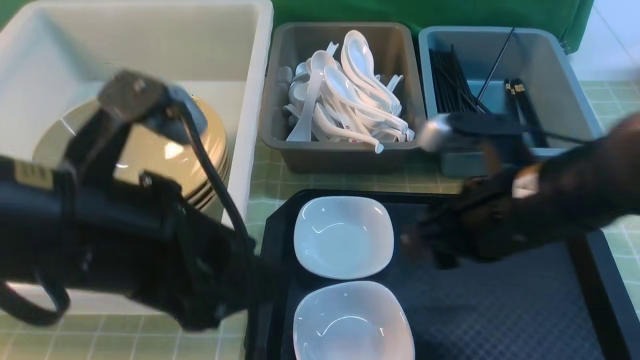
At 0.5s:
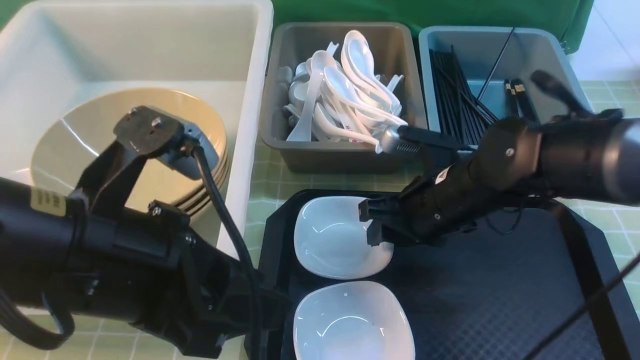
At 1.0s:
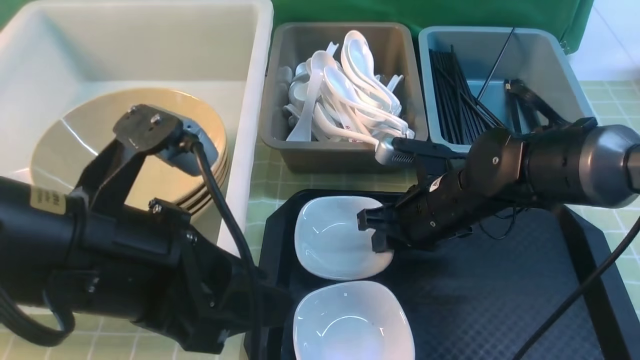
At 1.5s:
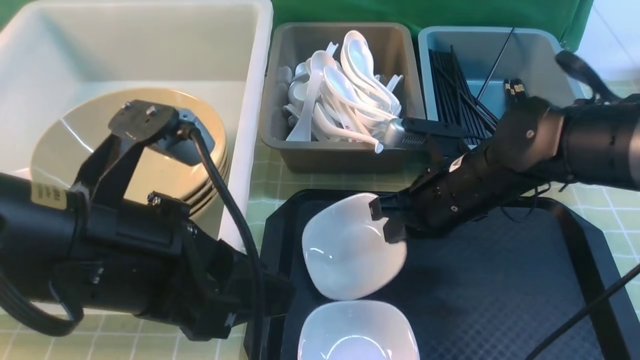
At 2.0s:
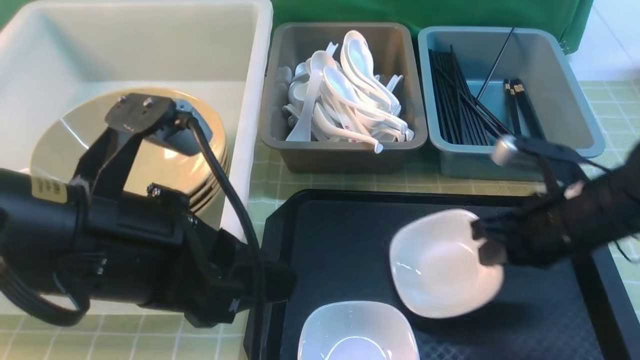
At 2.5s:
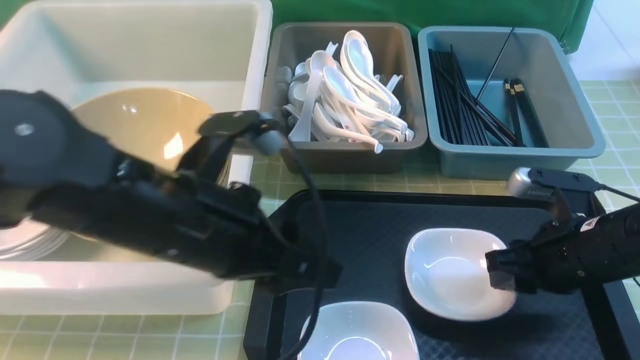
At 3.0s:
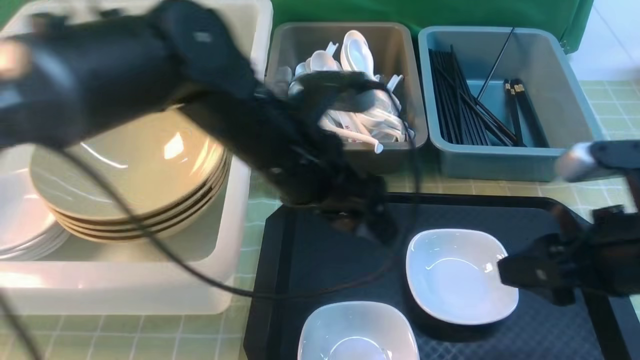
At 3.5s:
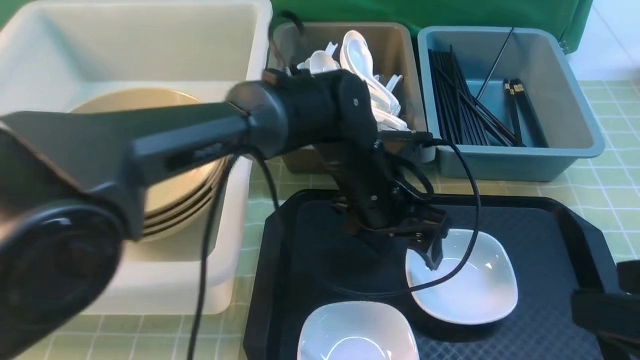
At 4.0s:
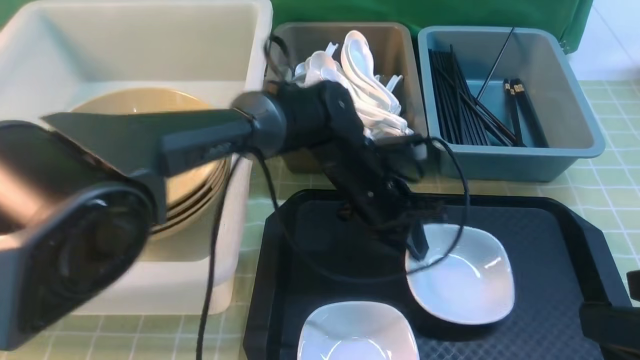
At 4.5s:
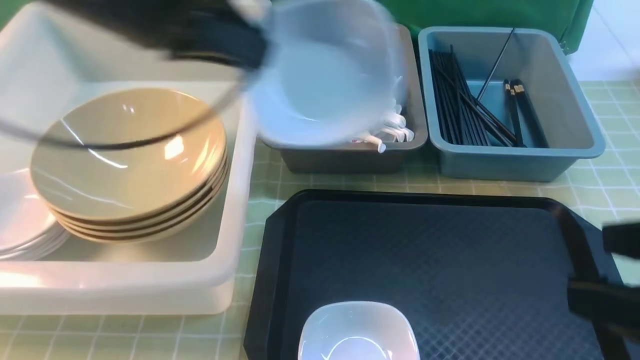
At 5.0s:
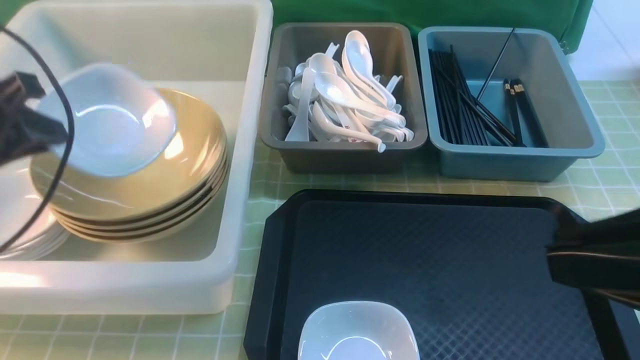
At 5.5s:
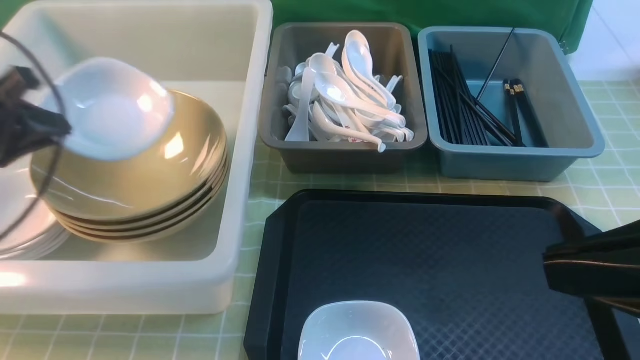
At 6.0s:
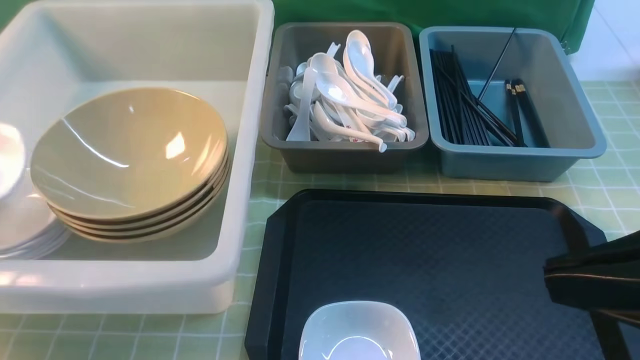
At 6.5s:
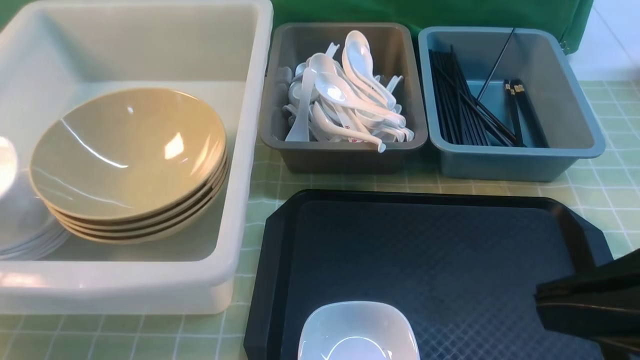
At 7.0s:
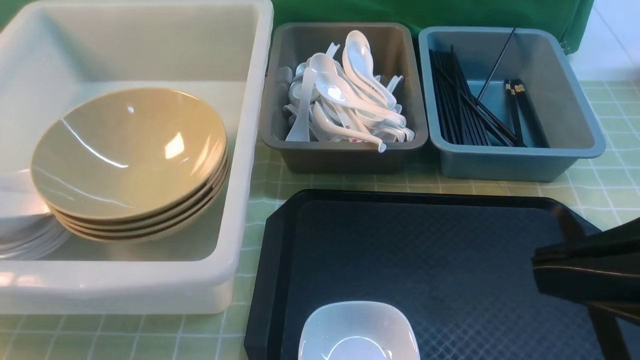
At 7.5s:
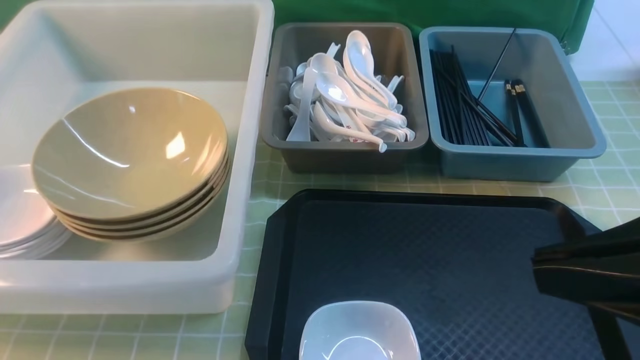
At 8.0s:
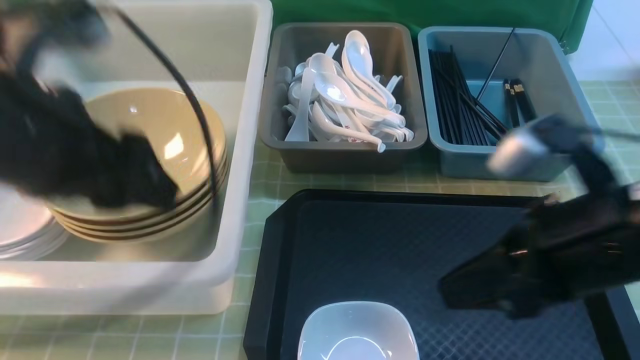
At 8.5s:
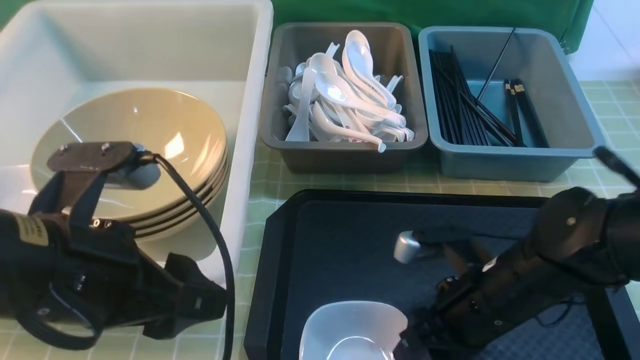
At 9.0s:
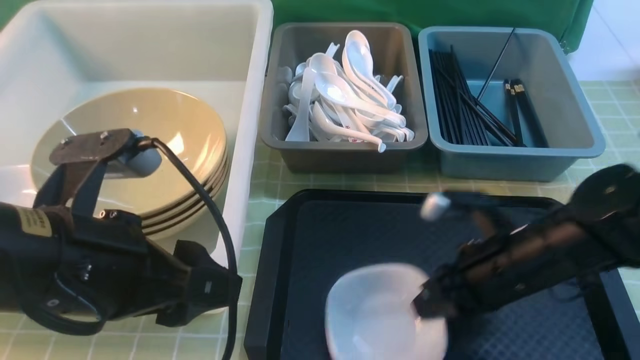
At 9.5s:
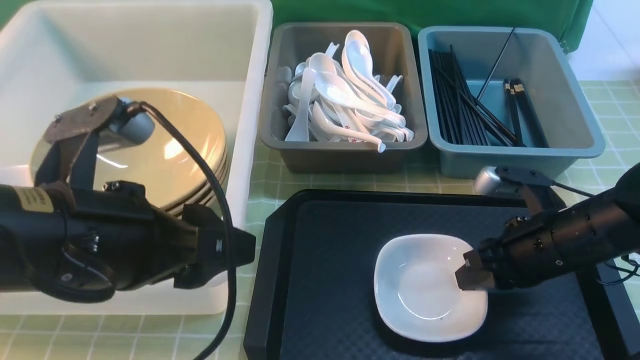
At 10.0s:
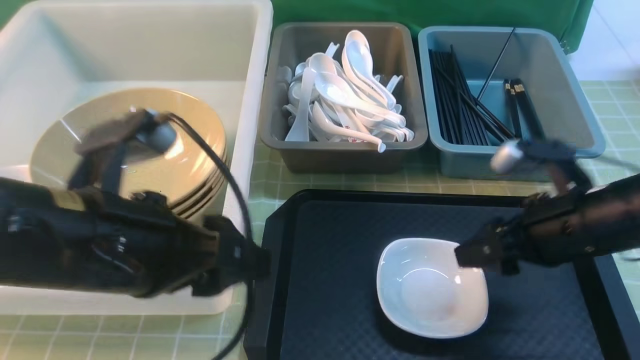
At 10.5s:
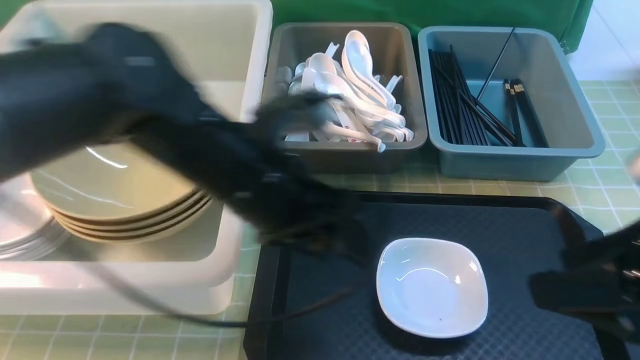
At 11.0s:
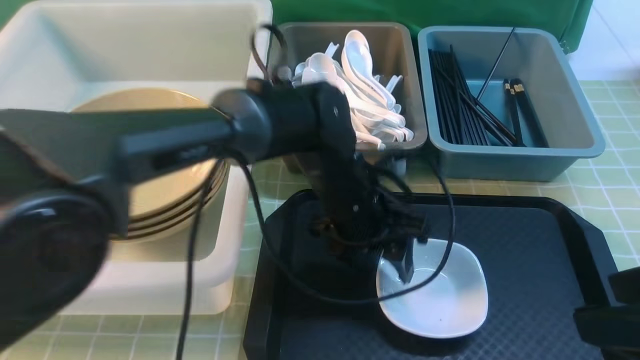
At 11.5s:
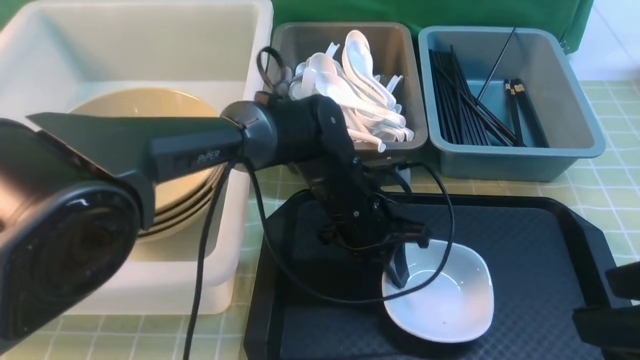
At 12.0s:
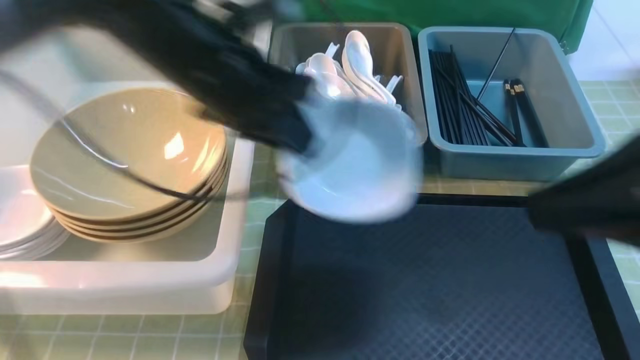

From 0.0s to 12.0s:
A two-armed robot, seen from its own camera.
Task of the whole recording: on green table put chopsticks spoon bowls plates into blue grey white boxes.
Step, from 0.0s to 1.5s: use the right arm to grab the plate.
Step, from 2.0s to 2.5s: use the right arm to put the plate on the tray.
Step, from 3.0s to 4.0s: use the left arm to grab the plate.
Step, from 4.5s to 7.5s: use the left arm to put the plate into the large storage box on the left.
Step, from 8.0s to 9.0s: use the right arm to grab the plate.
Step, from 9.5s to 10.0s: use the right arm to put the plate on the tray.
Step, from 10.5s to 11.5s: use the left arm to grab the plate.
From 0.0s to 2.0s: The right gripper heads to the right and downward, covering about 10 cm, and closes up.
From 2.0s to 4.0s: The left gripper is displaced forward, to the right and downward by about 30 cm, and closes up. Meanwhile the right gripper heads backward and upward, covering about 20 cm, and opens.
From 4.0s to 6.0s: The right gripper moves upward, about 5 cm, and closes its fingers. The left gripper heads to the left, covering approximately 40 cm.
From 6.0s to 8.0s: The left gripper heads to the right and upward, covering roughly 25 cm, and opens its fingers. The right gripper moves forward and downward, roughly 15 cm.
From 8.0s to 10.0s: The right gripper goes roughly 10 cm downward, forward and to the right, and opens its fingers. The left gripper shifts approximately 5 cm downward.
From 10.0s to 12.0s: The left gripper goes some 15 cm forward, reaches approximately 15 cm to the right, then returns, and closes up. The right gripper heads upward and backward, covering approximately 20 cm, and closes its fingers.

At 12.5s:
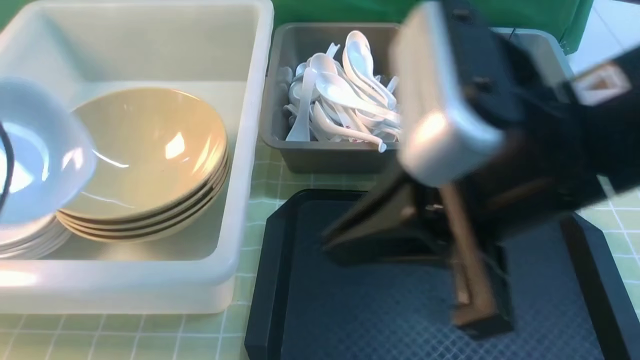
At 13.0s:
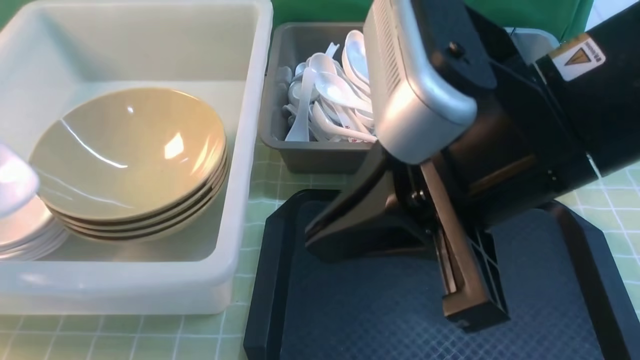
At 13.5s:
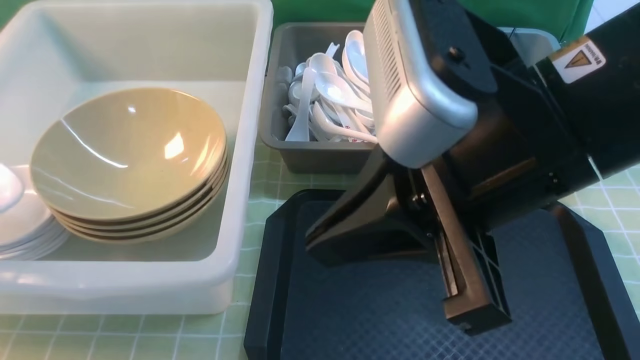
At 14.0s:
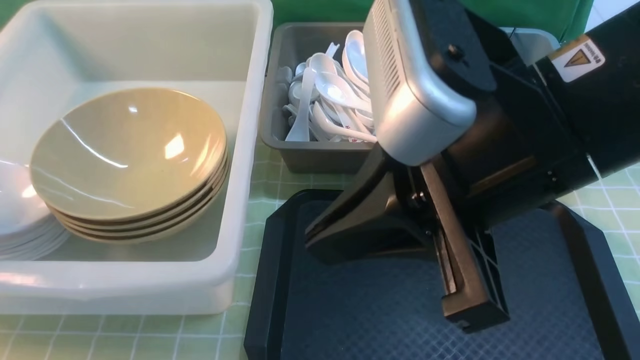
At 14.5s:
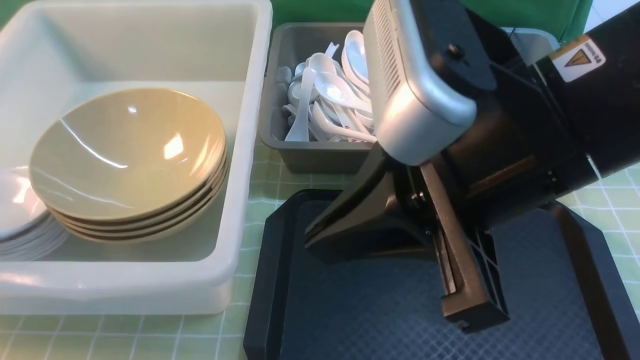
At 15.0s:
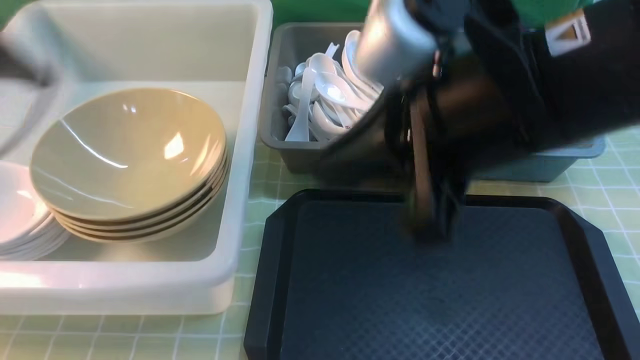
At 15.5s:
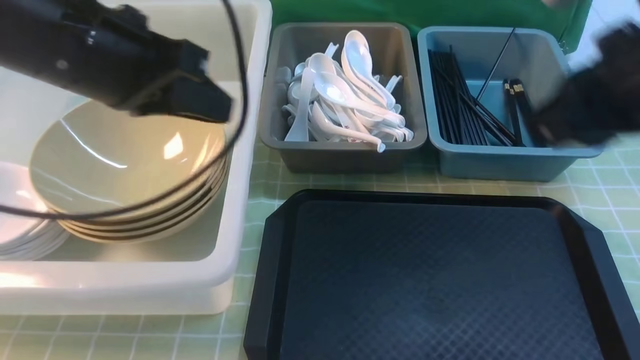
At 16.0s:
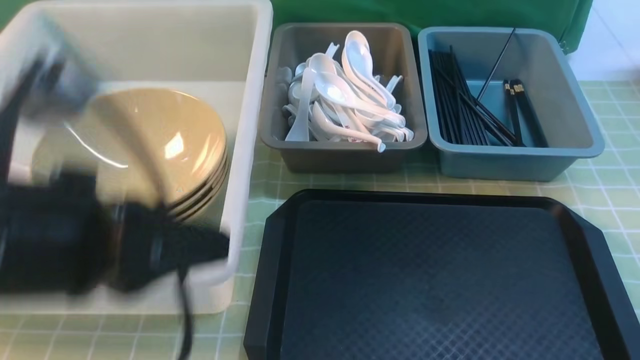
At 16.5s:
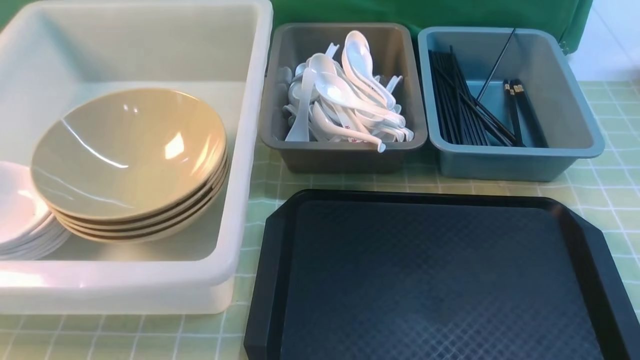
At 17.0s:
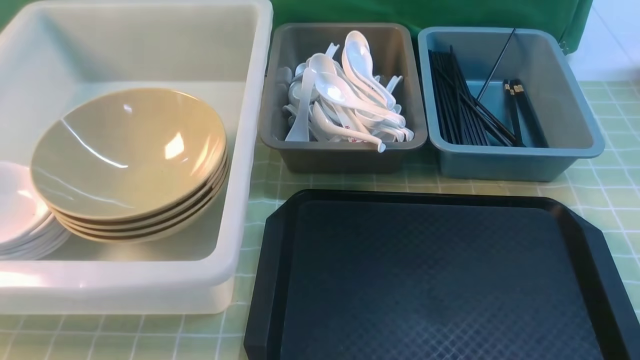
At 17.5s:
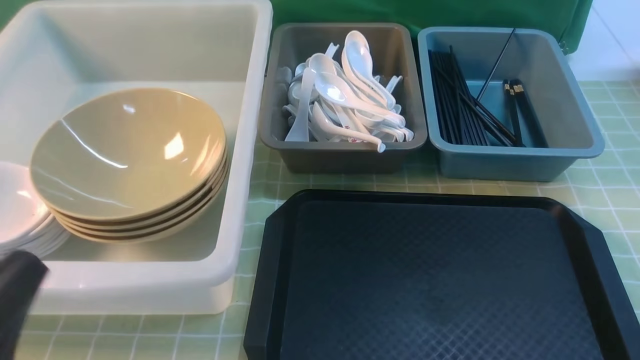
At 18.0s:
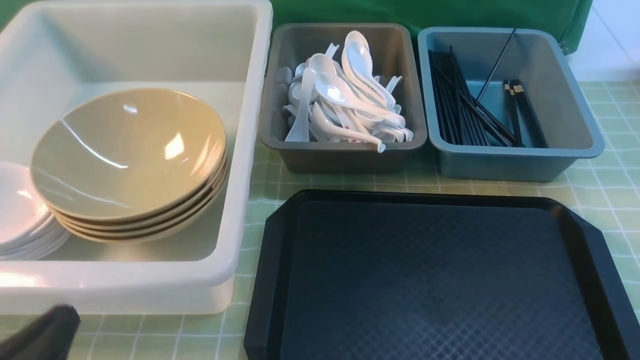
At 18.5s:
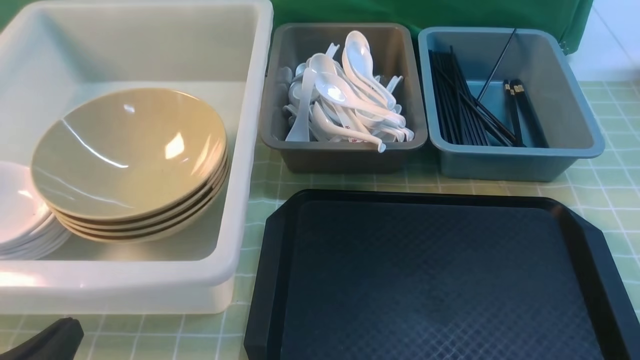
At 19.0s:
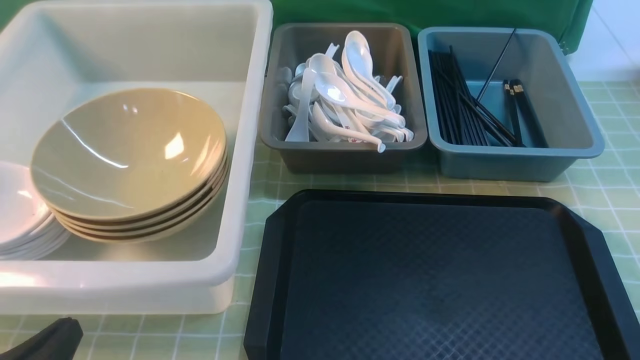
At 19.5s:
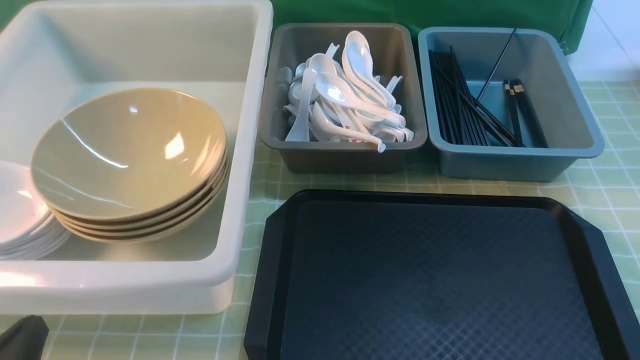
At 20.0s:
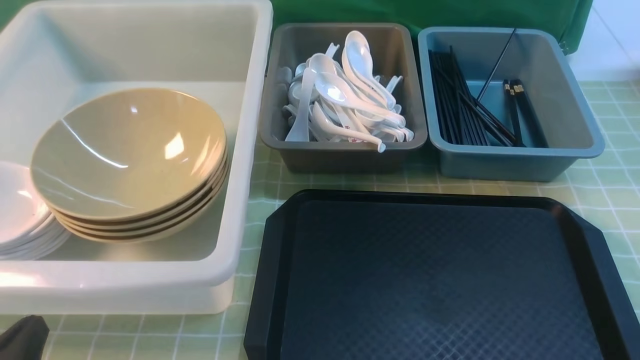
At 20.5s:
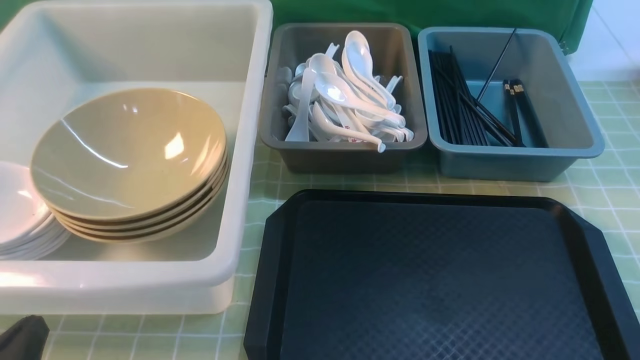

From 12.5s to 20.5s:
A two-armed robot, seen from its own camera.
Task of the whole recording: on green table put chopsticks spoon bowls plates into blue grey white boxes.
Step, from 12.5s to 15.0s: use the left arm to put the plate into the large storage box on the left.
From 12.5s to 14.5s: The left gripper goes approximately 15 cm to the left, downward and forward, and opens its fingers.
From 14.5s to 16.5s: The right gripper shifts about 25 cm to the right, downward and backward, while the left gripper moves backward and to the right, about 35 cm, and closes.
From 16.5s to 18.5s: The left gripper shifts some 10 cm downward and to the left.
